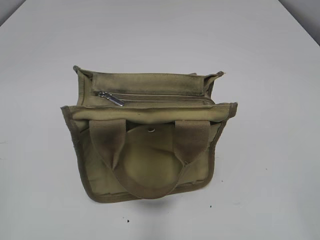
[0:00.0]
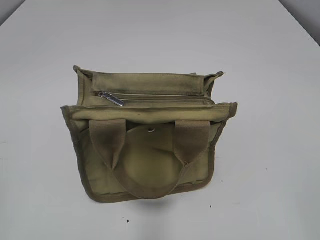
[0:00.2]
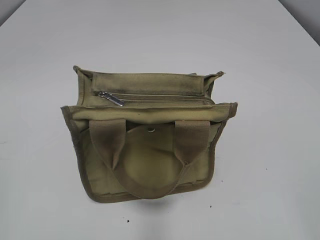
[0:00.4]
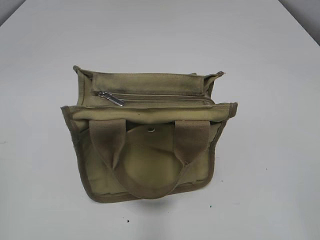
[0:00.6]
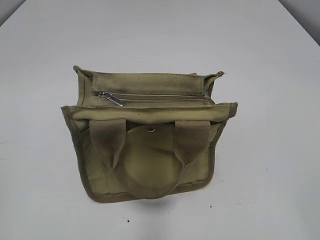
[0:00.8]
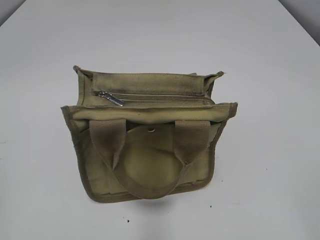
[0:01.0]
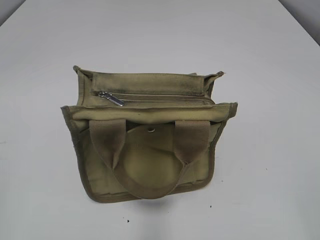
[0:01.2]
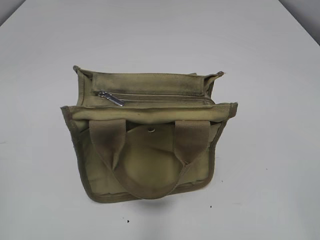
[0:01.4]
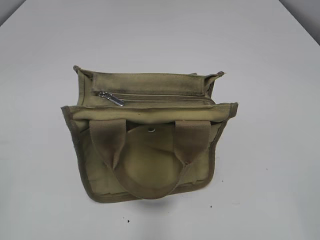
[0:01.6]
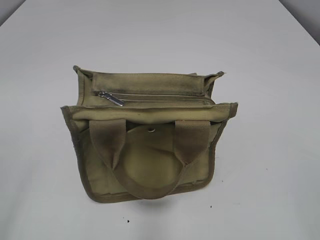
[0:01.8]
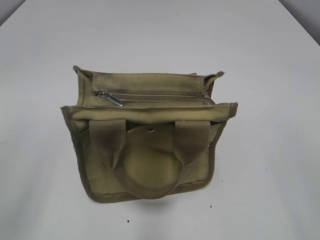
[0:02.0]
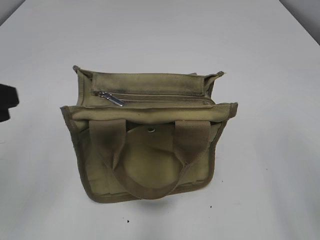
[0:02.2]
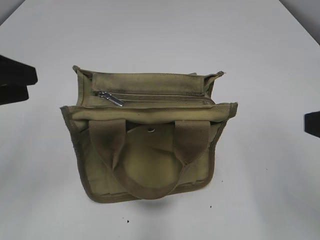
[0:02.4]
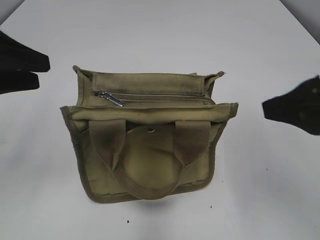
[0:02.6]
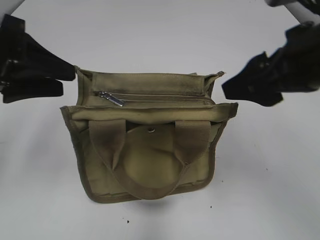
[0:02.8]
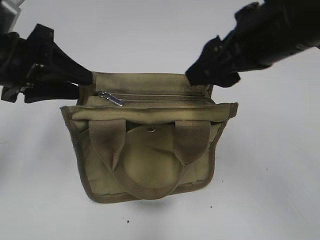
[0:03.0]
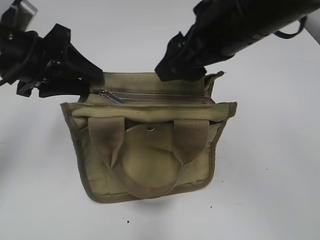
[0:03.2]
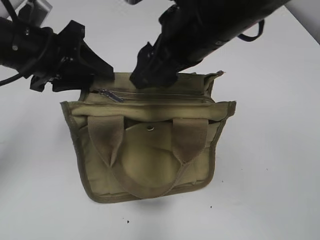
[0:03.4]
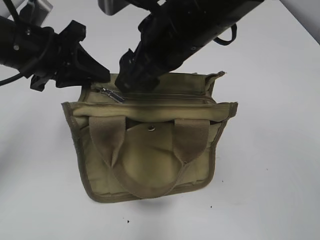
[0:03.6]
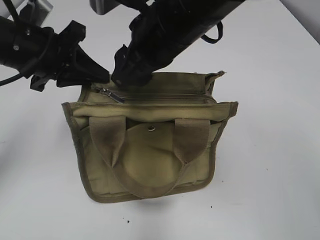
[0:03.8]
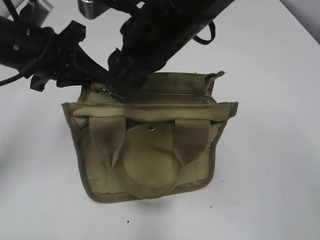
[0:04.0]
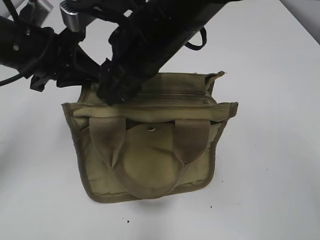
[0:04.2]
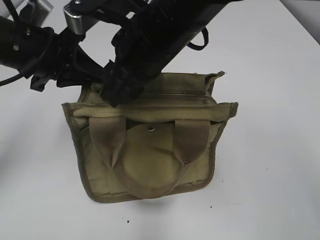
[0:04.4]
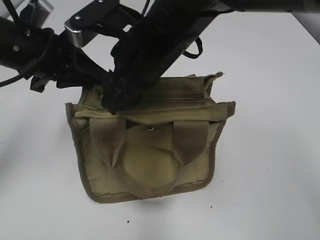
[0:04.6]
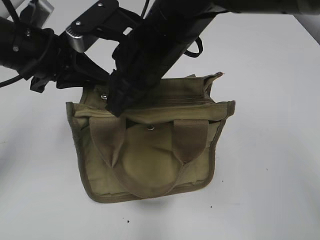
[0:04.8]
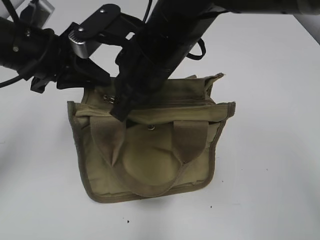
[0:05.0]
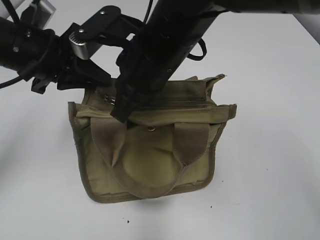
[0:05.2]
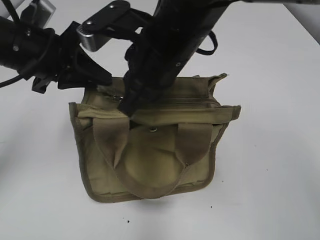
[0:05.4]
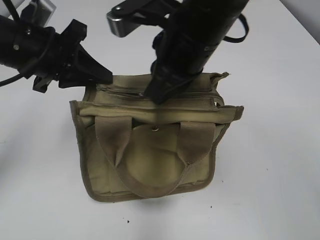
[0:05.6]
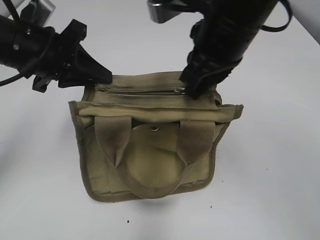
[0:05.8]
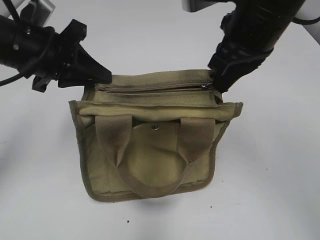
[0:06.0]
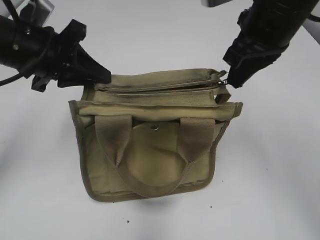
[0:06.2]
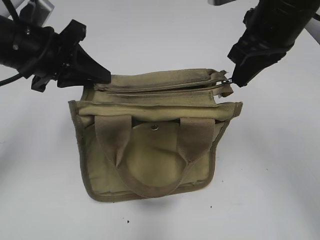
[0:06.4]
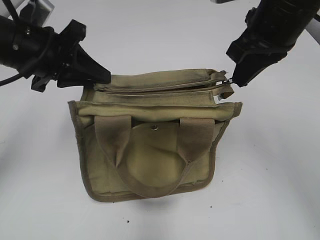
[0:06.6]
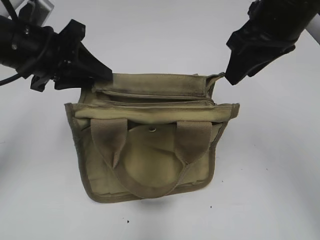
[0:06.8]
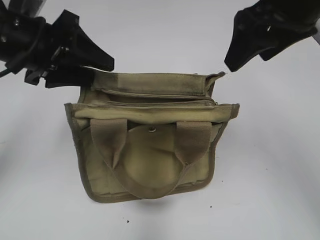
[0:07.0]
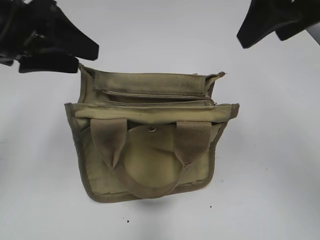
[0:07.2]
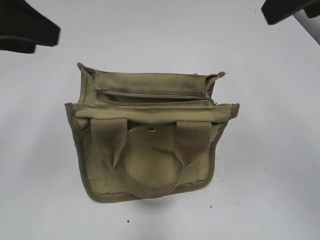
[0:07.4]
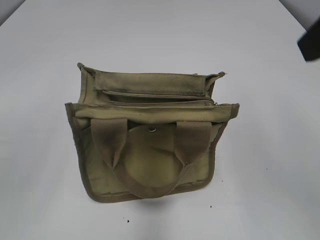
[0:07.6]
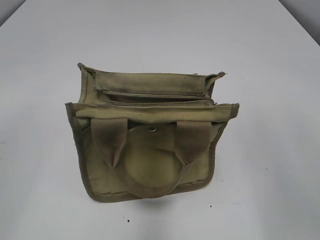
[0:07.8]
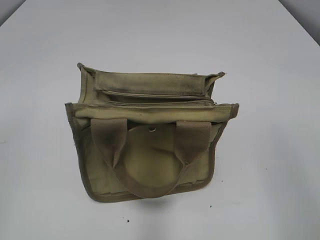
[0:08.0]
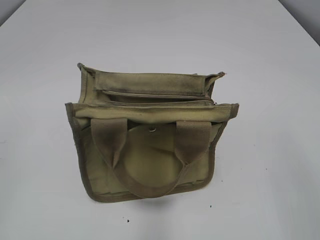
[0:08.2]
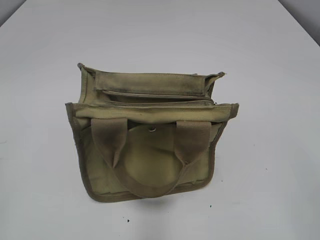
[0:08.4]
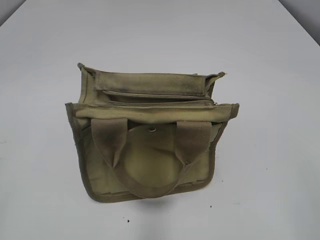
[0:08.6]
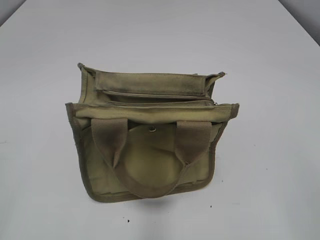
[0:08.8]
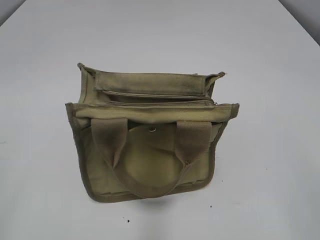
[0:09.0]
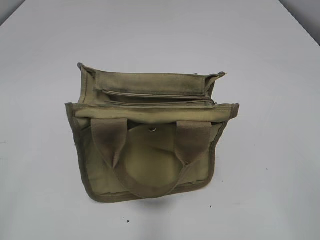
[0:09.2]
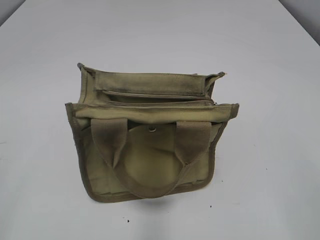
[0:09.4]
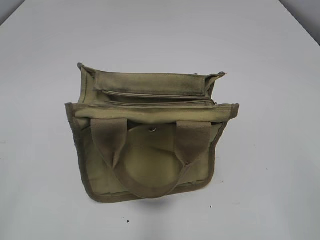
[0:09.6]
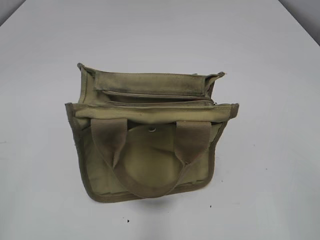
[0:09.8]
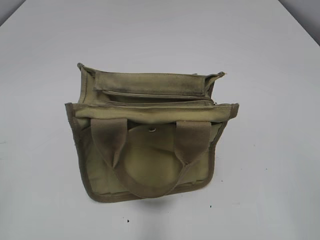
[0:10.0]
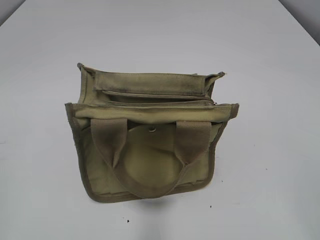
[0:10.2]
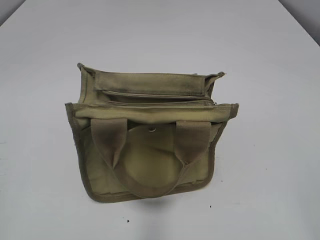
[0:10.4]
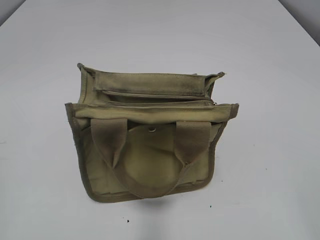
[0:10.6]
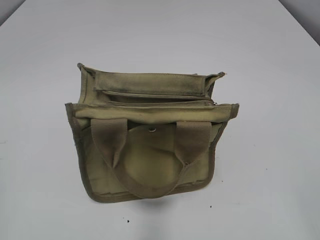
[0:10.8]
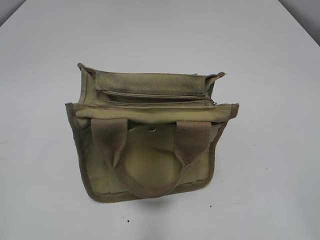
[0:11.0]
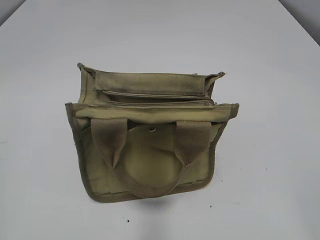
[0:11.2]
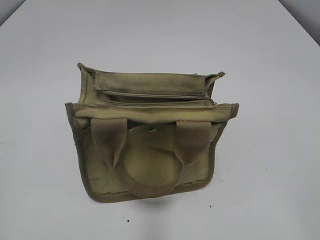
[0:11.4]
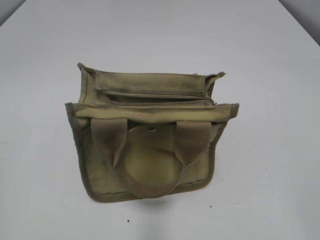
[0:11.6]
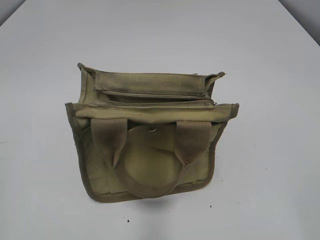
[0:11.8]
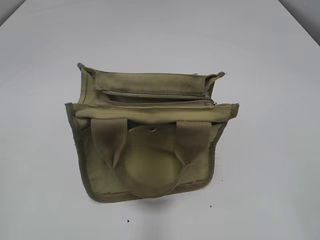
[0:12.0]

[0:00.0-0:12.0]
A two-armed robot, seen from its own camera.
Step, 0:00.0 to 0:06.6: Pull open the zipper with your right hand.
Step, 0:06.8 to 0:07.2: Hold the bag with your left hand.
0:01.6 to 0:03.0: The right gripper heads forward and to the left, covering about 30 cm. The left gripper goes about 25 cm forward.
0:03.0 to 0:04.4: The left gripper closes its fingers. Meanwhile the right gripper shifts roughly 15 cm to the left.
0:04.4 to 0:06.0: The right gripper goes about 10 cm to the right, and closes its fingers.
0:06.0 to 0:07.6: The right gripper goes roughly 15 cm backward, upward and to the right, and opens up, while the left gripper moves backward, upward and to the left, roughly 20 cm, and opens up.
0:07.6 to 0:09.0: The right gripper heads backward and downward, covering about 20 cm.
0:10.4 to 0:12.0: Neither gripper changes place.

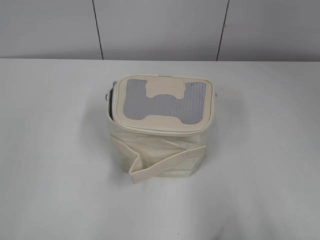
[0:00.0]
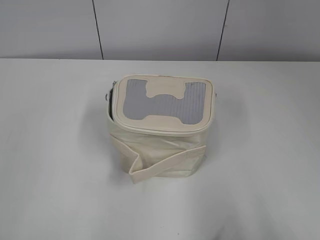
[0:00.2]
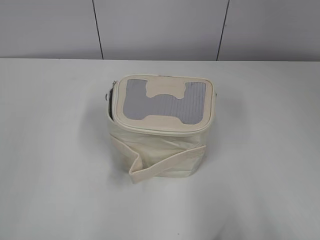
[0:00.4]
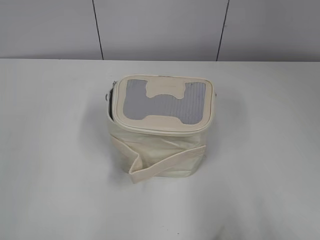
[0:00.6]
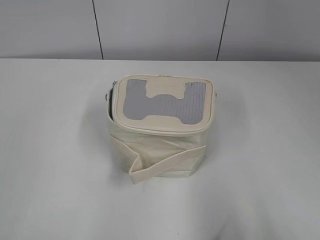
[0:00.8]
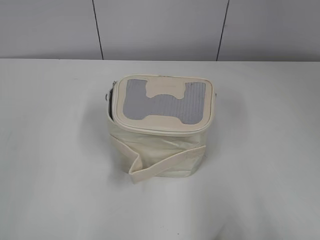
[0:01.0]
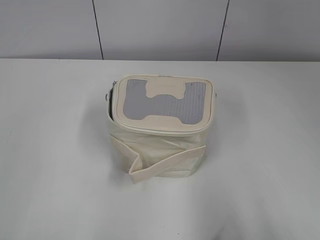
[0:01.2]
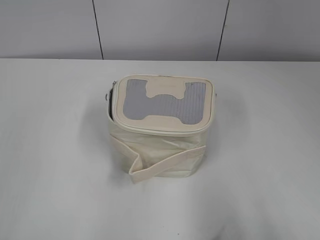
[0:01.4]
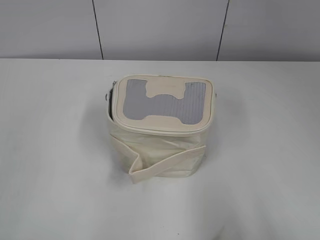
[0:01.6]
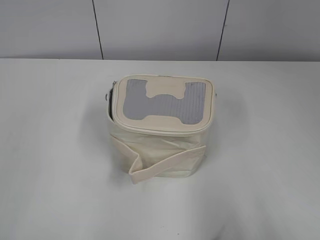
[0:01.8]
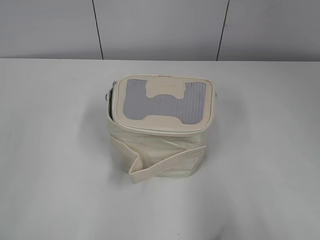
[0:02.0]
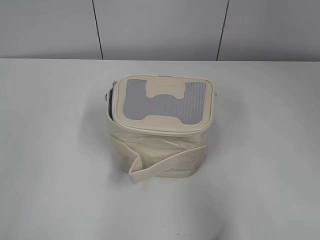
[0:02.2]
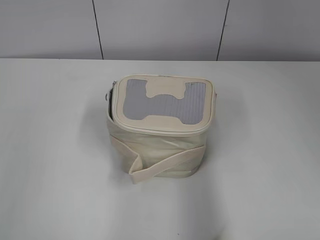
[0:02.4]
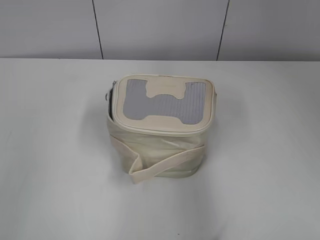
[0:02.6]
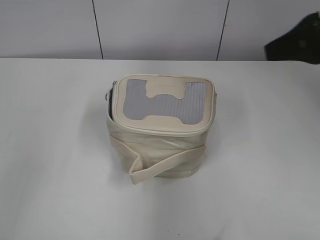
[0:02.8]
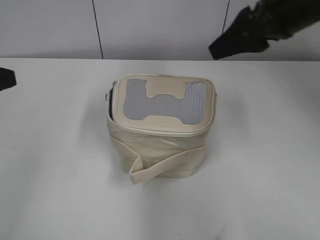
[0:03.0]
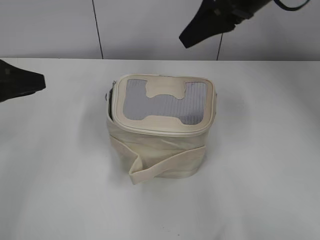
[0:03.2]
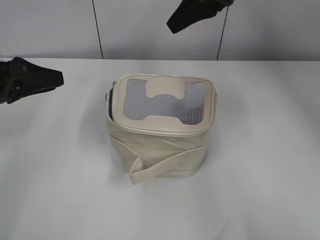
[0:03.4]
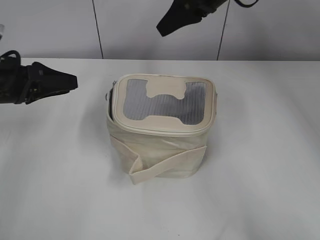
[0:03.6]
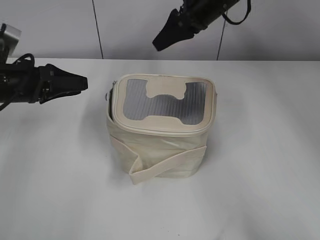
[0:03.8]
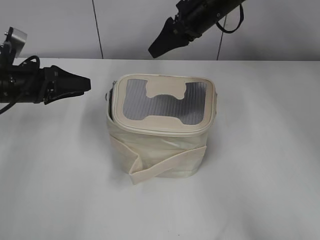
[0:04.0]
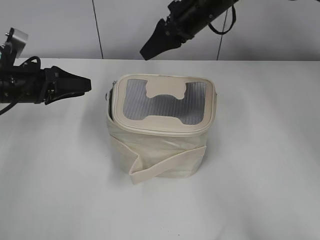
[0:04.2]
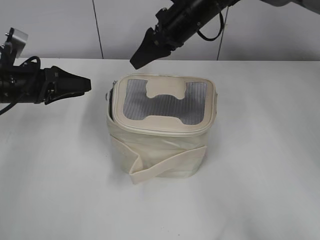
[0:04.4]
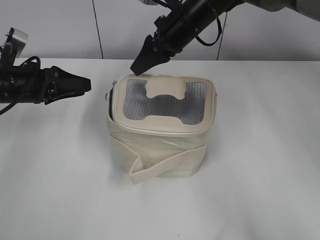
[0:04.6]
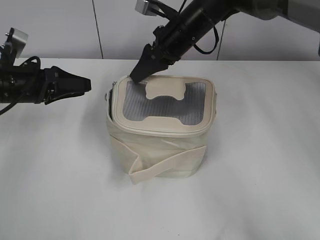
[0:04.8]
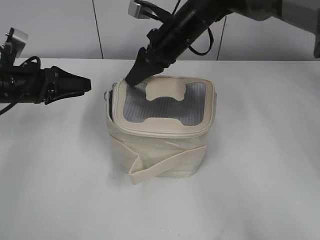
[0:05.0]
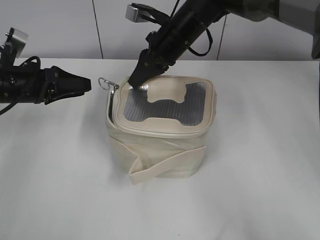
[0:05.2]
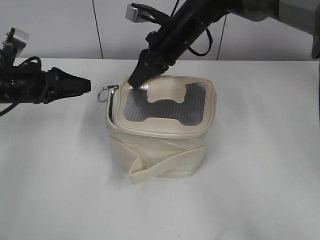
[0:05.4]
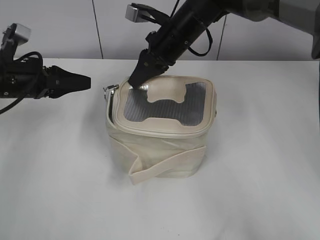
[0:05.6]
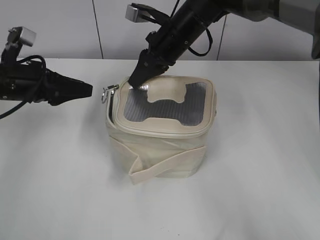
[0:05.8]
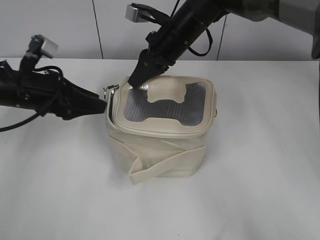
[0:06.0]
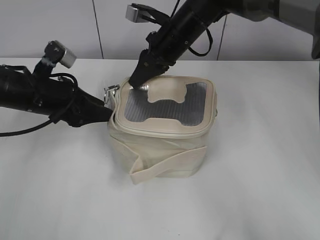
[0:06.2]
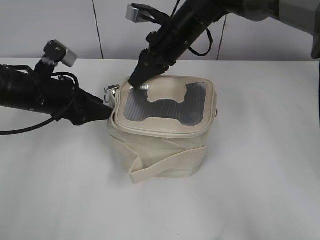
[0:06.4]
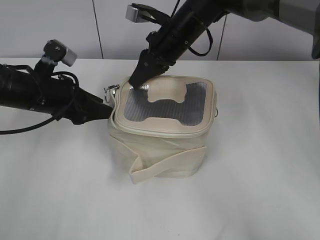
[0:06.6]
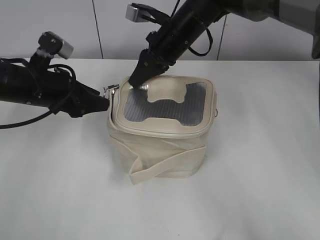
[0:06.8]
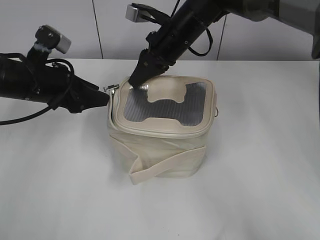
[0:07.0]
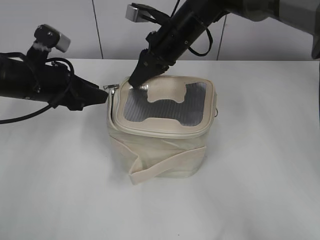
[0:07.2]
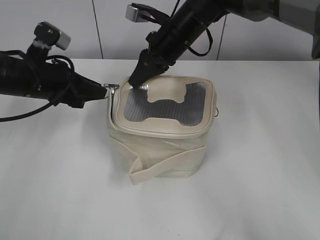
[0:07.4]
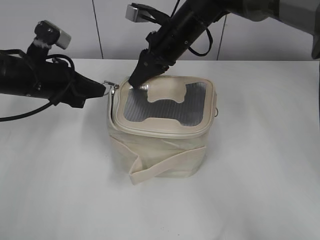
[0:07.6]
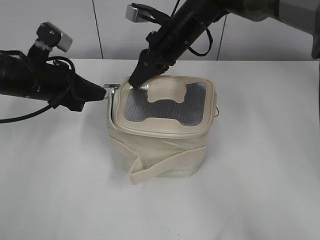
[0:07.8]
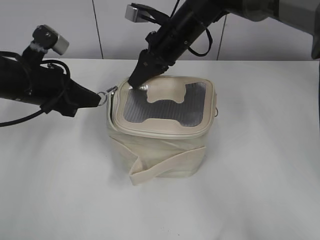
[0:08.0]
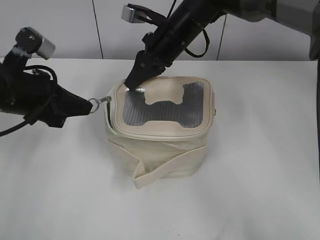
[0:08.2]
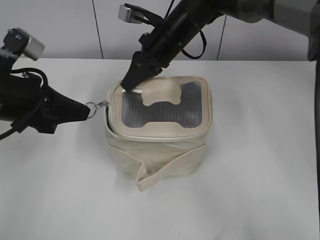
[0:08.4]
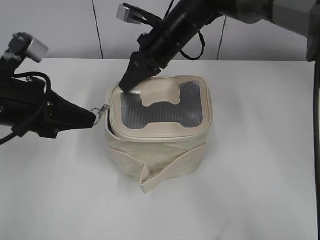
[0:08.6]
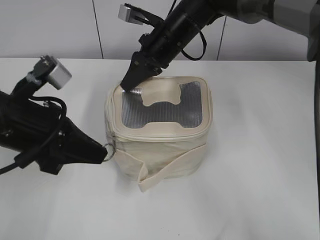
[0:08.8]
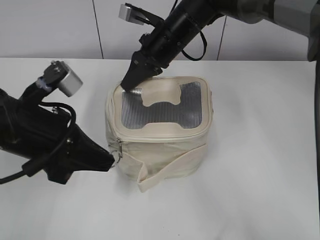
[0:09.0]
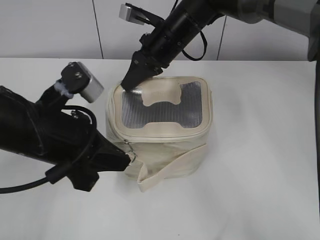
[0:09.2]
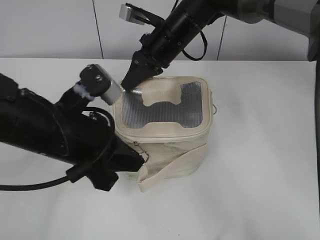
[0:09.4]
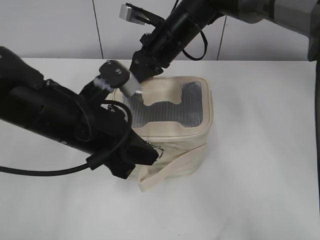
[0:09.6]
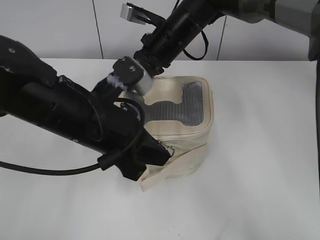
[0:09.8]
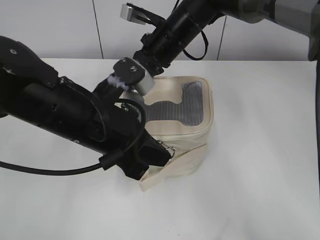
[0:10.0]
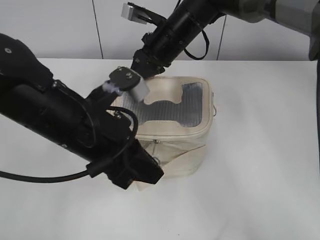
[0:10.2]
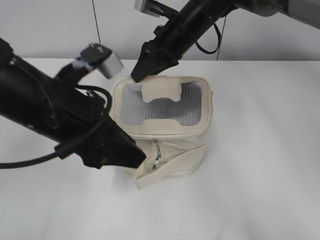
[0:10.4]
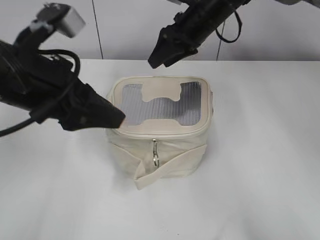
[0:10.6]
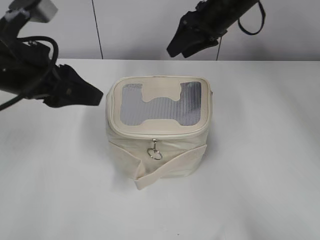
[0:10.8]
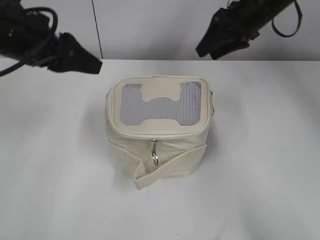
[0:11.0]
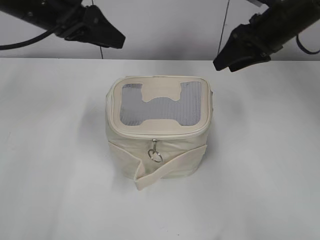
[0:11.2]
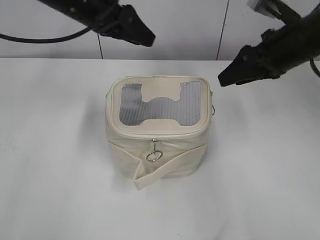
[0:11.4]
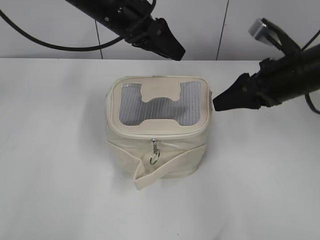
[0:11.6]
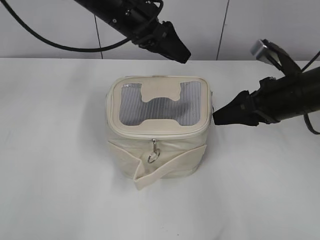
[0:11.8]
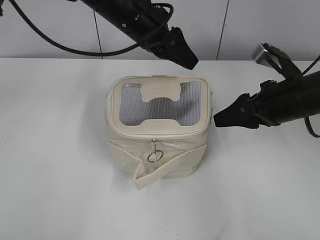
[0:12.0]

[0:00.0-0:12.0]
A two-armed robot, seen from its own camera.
Step, 0:00.0 to 0:10.0: Zip up the bag with your left hand.
0:01.6 to 0:03.0: The right gripper is displaced forward by about 30 cm. The left gripper is displaced forward by about 20 cm.
0:03.0 to 0:04.4: The right gripper shifts some 20 cm forward, to the left and downward. The left gripper travels forward and downward by approximately 15 cm.
0:04.4 to 0:06.0: The right gripper closes.
0:06.0 to 0:07.6: The left gripper closes its fingers.
0:07.6 to 0:09.0: The left gripper is displaced backward by some 10 cm.
0:09.0 to 0:10.4: The left gripper shifts approximately 5 cm to the right, and opens its fingers. The right gripper opens up.
0:10.4 to 0:12.0: The left gripper heads forward, covering approximately 20 cm. Meanwhile the right gripper goes approximately 25 cm to the right and backward.
